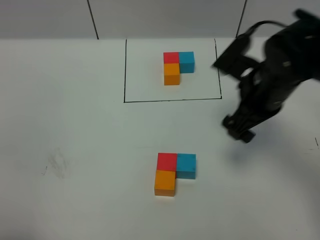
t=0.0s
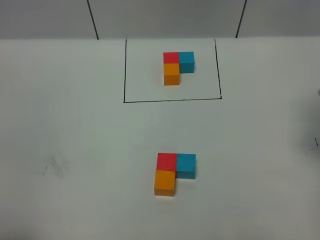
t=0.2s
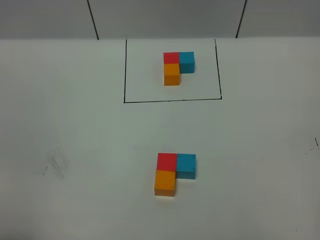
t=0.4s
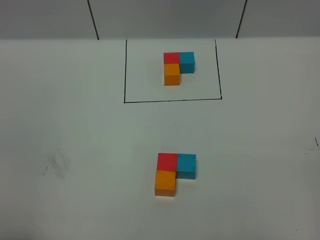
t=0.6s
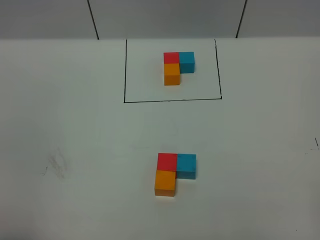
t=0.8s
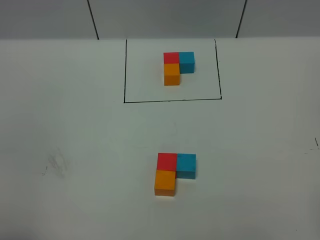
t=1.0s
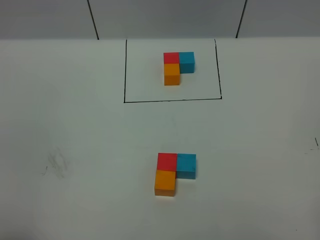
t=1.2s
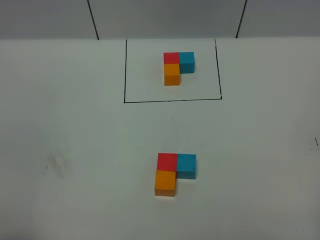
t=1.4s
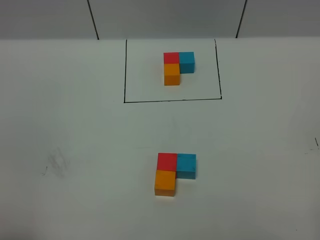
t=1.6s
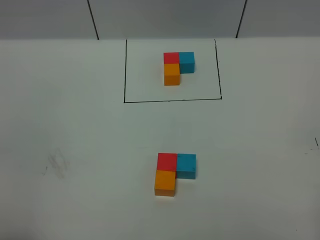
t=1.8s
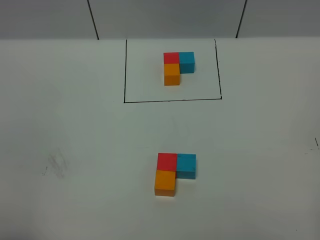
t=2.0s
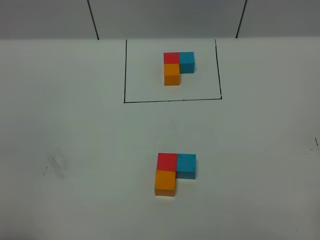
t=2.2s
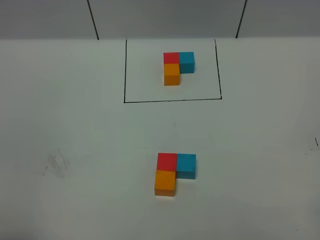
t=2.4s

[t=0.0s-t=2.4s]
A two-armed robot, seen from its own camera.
Task of the whole recording: According to the building block template in front, assemble the scattered blocks together.
t=0.0s to t=1.2s: The right gripper goes roughly 35 cm backward and to the right.

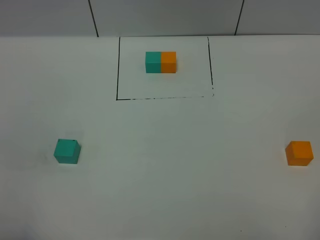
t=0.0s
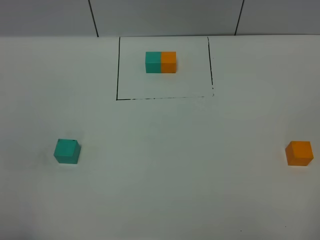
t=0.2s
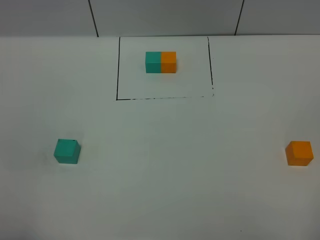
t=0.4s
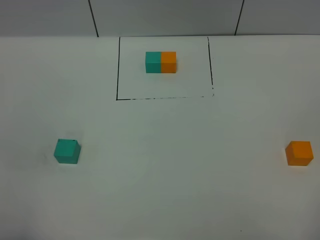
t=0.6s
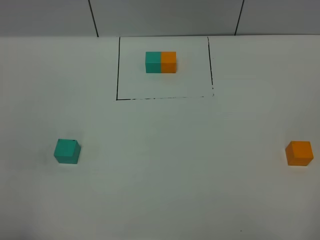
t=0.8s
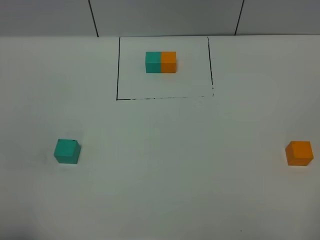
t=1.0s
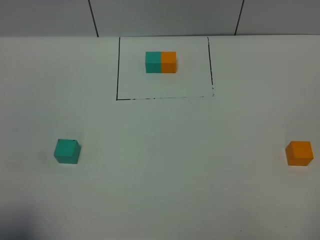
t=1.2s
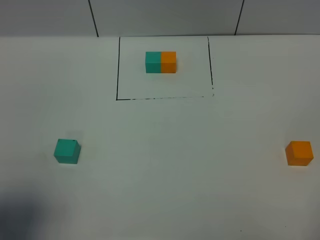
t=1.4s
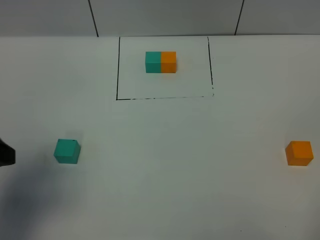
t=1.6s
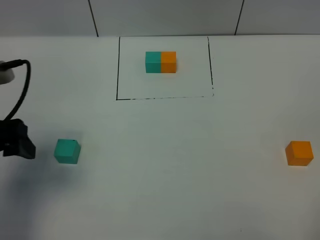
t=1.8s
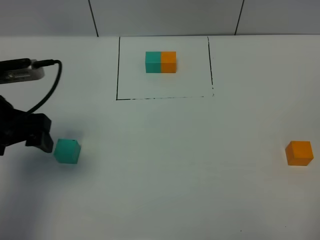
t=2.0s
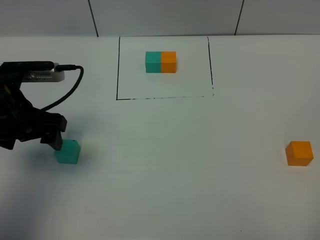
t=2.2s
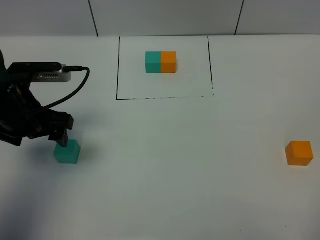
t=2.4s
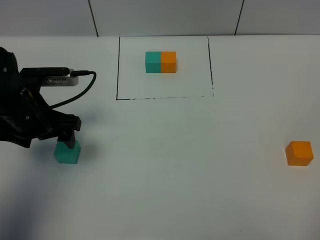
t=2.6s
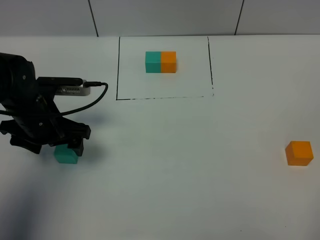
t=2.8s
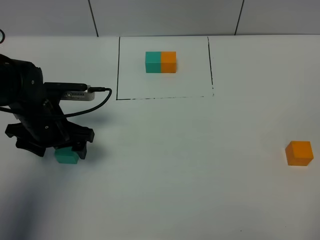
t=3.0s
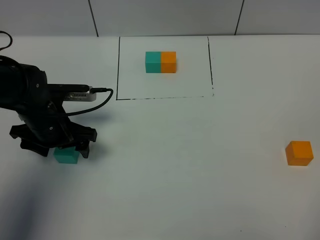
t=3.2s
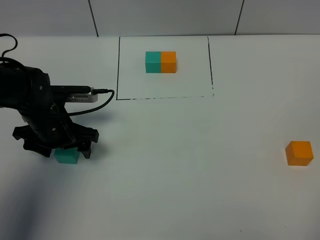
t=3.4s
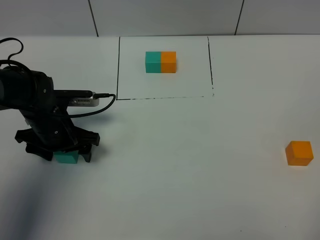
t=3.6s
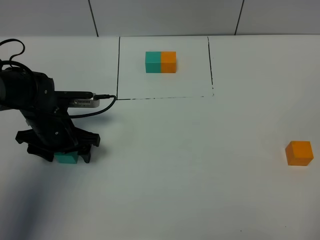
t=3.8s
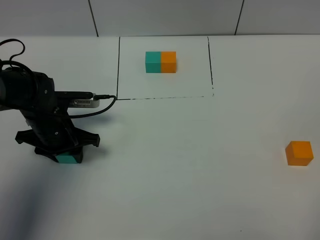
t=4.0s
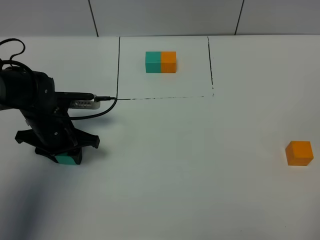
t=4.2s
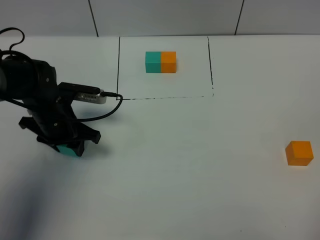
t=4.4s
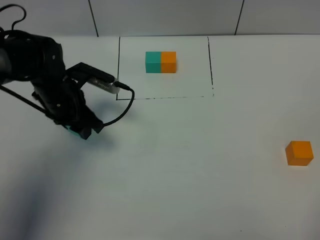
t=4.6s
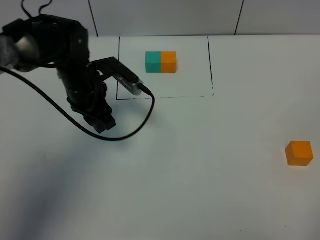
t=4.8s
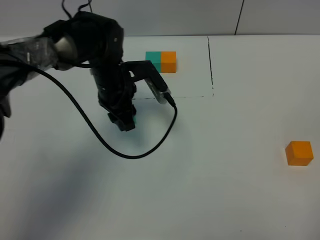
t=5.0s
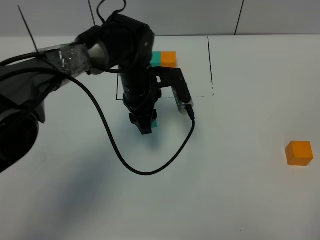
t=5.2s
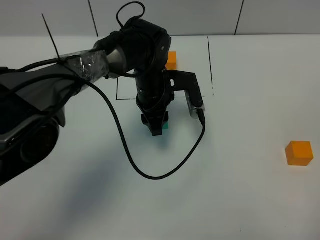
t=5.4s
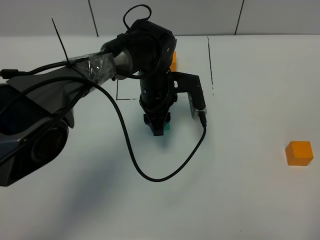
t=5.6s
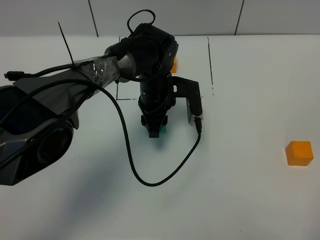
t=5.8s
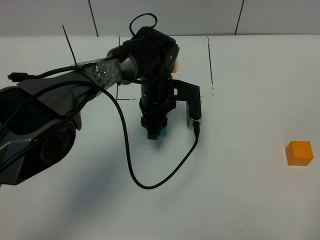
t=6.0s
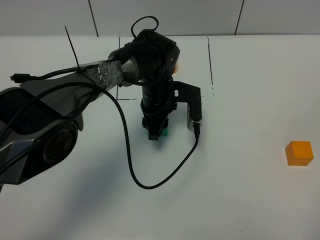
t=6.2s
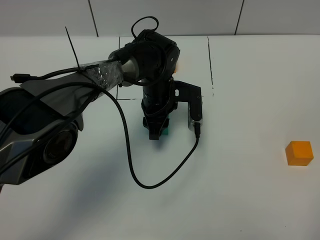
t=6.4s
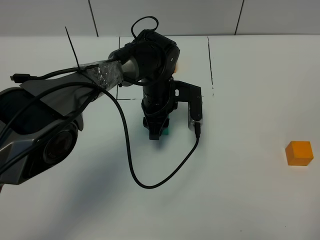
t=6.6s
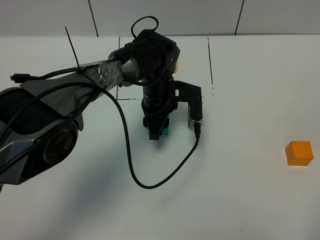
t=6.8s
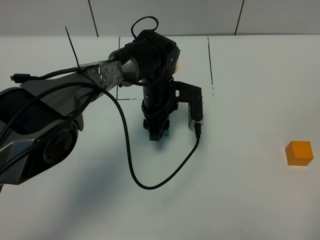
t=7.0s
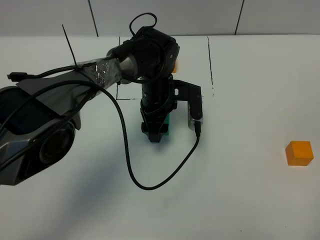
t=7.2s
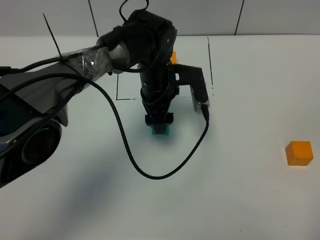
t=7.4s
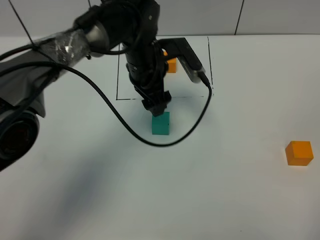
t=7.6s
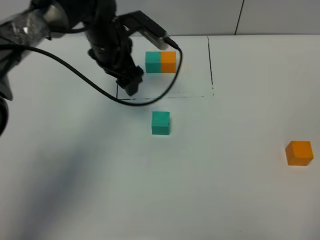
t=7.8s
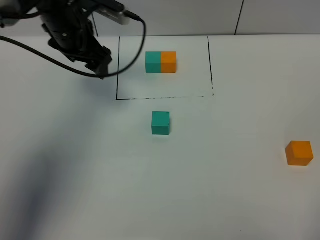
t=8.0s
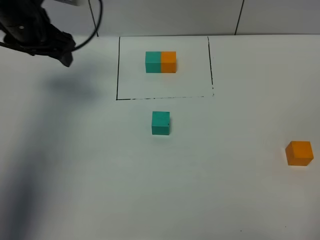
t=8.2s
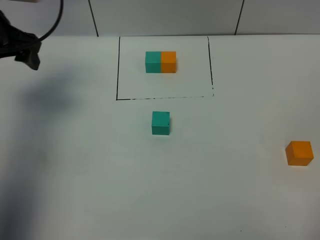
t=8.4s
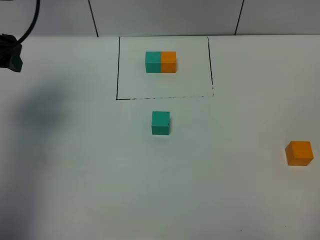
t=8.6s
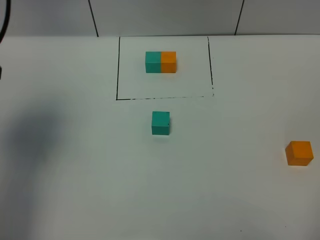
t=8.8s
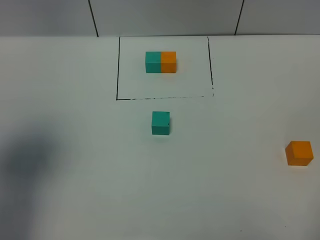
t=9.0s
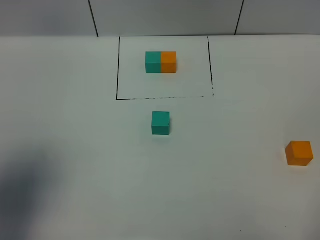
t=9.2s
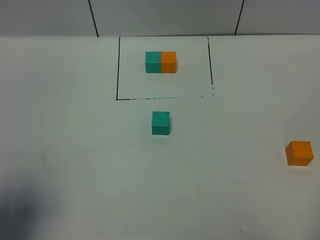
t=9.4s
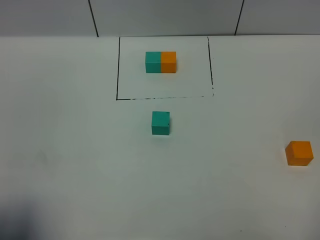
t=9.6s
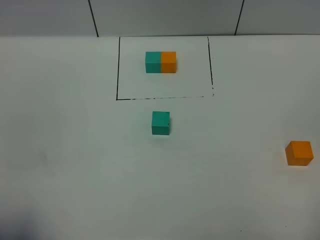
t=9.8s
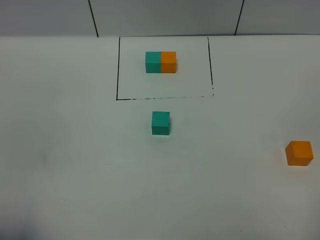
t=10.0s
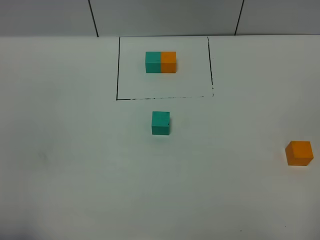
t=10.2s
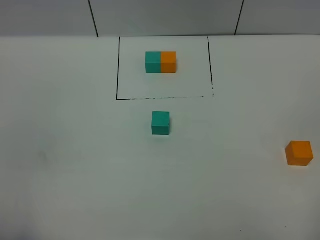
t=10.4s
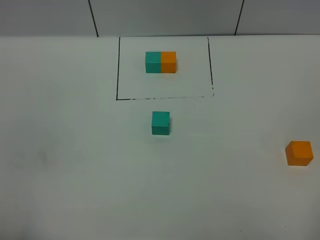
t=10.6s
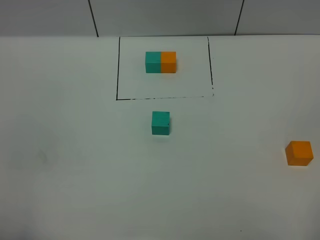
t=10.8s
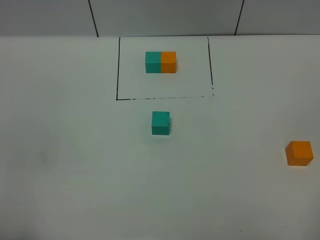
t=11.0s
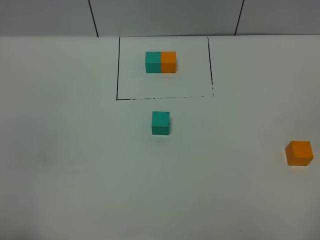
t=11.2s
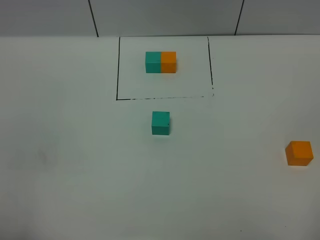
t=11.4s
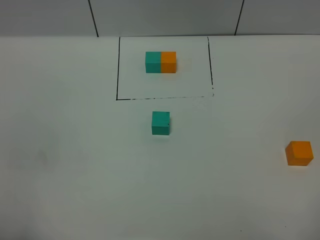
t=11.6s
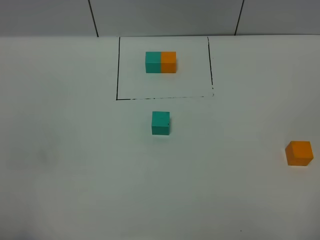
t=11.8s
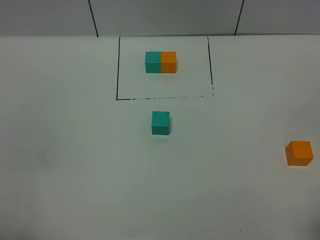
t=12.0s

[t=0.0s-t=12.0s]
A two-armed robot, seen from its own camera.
Task of the whole recording: According to the building block template in front, assemble the scattered blocks together.
Step, t=1.6s to t=7.8s: Put the green cube in the center of the table.
t=0.0s to t=1.6s: The left gripper heads forward, covering approximately 15 cm.
t=1.6s to t=3.0s: The left gripper shifts some 20 cm downward and forward.
t=3.0s to t=4.4s: The left gripper closes its fingers.
t=4.4s to t=6.0s: The left gripper is displaced to the right by about 20 cm.
t=6.0s to t=7.6s: The left gripper moves upward, roughly 10 cm, and opens up.
t=7.6s to t=9.0s: The left gripper is displaced to the left, backward and upward by some 35 cm.
t=9.0s to t=10.4s: The left gripper is displaced backward and downward by some 20 cm.

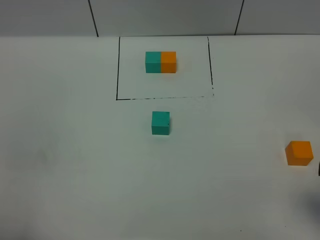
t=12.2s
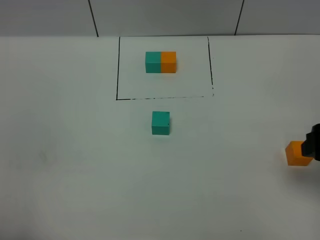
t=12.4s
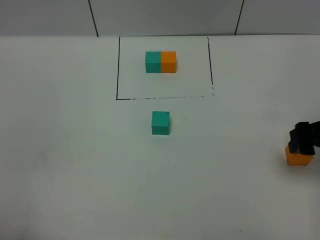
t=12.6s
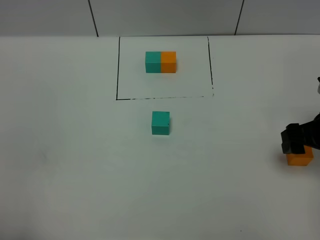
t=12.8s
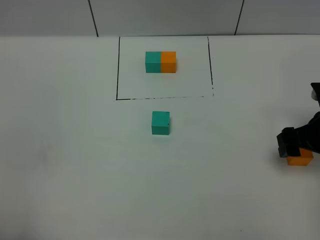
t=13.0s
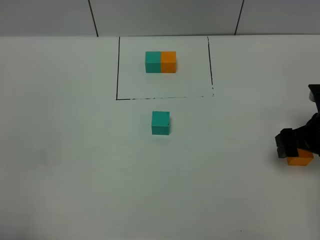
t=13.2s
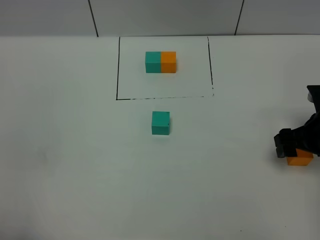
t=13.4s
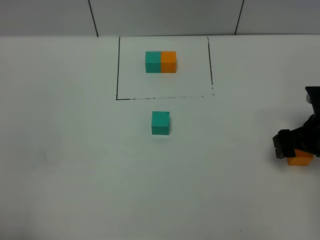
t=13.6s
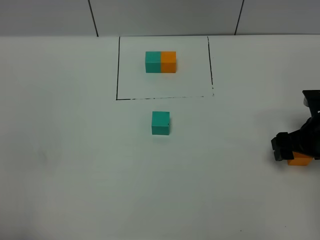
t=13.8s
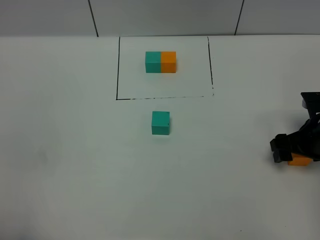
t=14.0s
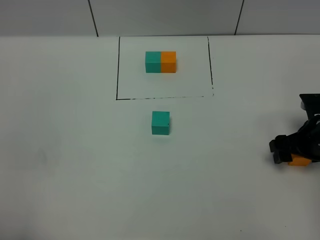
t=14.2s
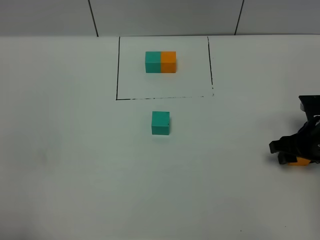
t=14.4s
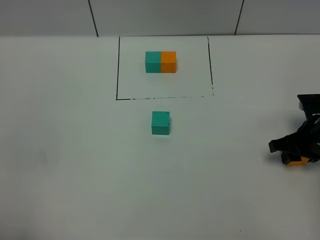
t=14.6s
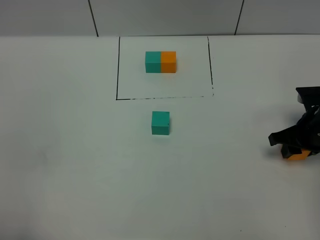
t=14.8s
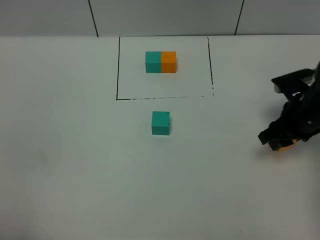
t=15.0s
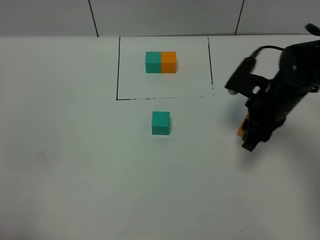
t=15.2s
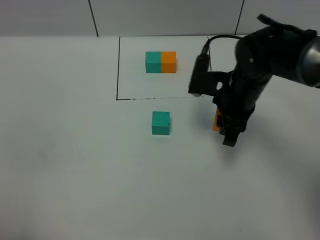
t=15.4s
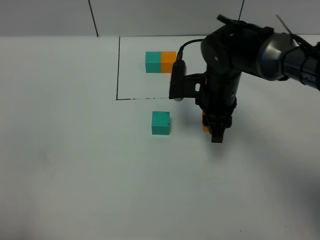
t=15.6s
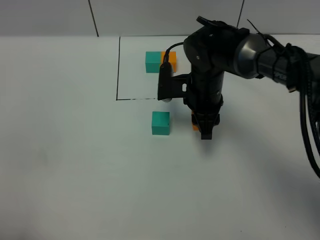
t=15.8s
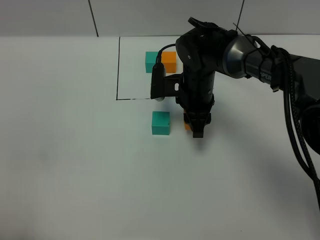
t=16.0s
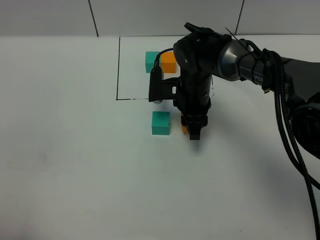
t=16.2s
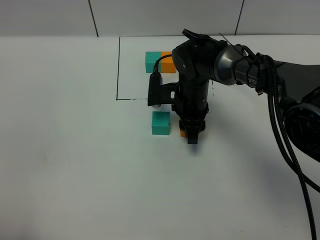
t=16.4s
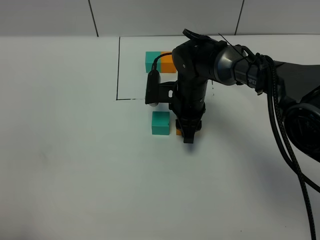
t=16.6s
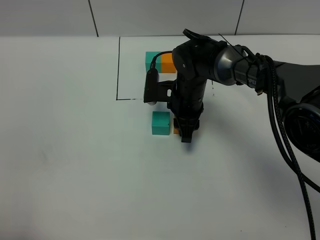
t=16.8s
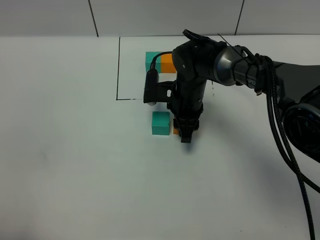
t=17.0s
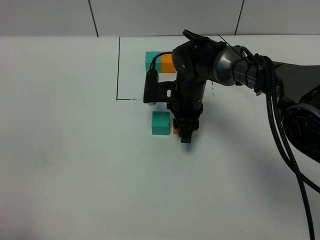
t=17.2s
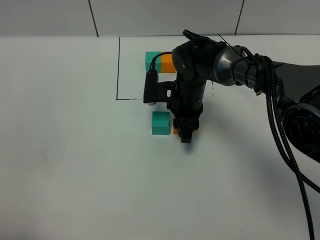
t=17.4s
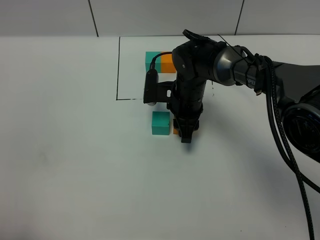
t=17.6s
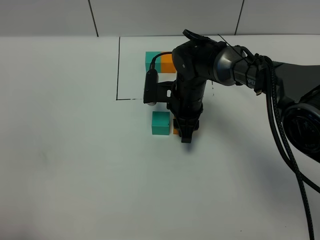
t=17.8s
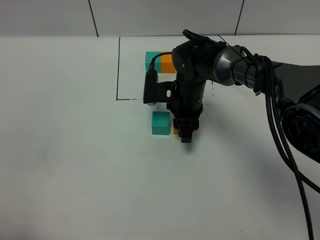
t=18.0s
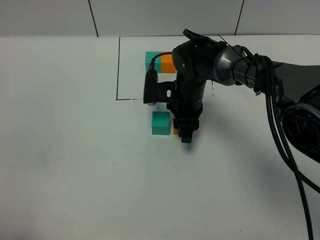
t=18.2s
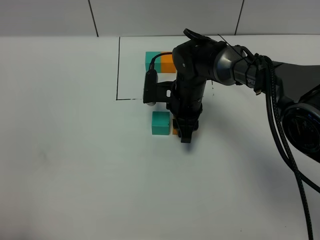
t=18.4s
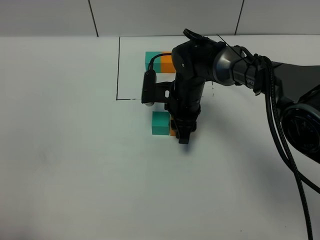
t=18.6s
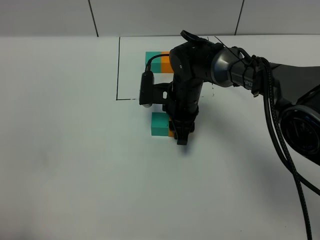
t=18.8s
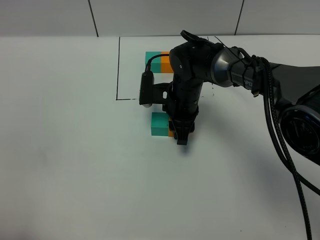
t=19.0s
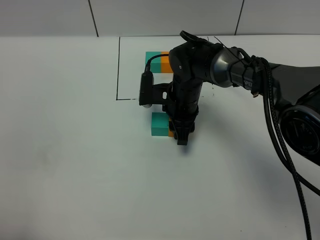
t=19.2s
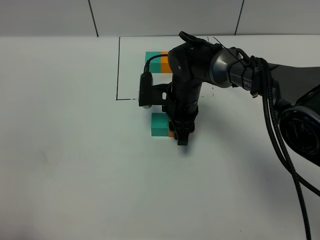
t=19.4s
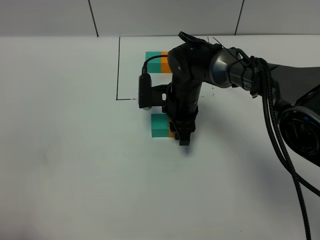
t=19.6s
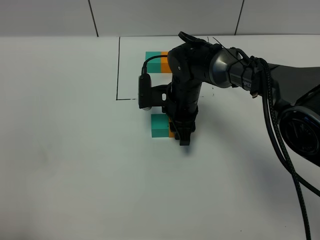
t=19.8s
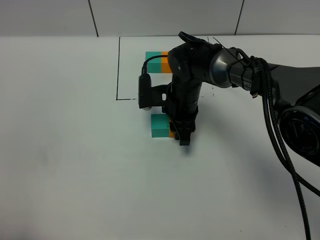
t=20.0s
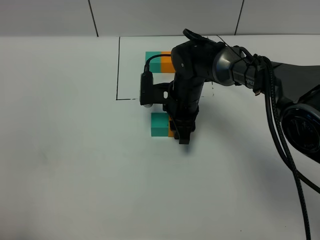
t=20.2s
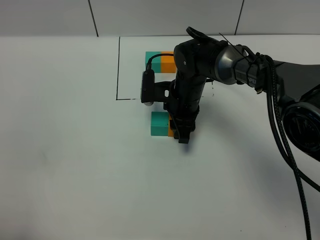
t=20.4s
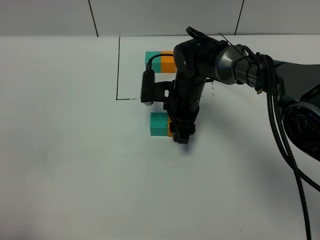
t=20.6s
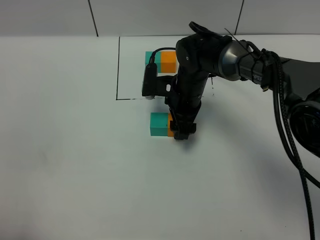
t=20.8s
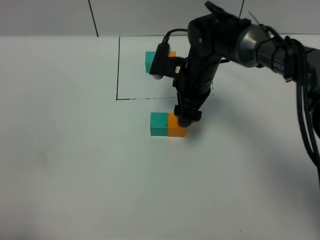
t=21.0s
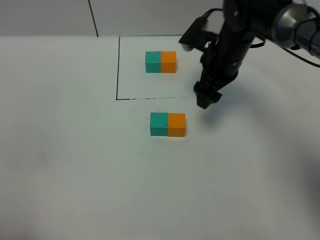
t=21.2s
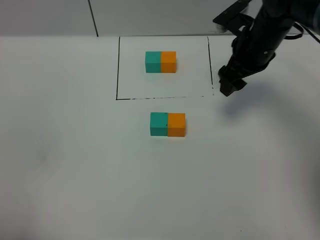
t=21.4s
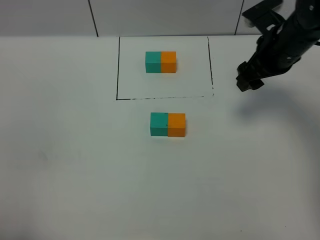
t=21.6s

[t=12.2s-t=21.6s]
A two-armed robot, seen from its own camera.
Task of the whole recording: According to the building block template in front, assemble the scattered blocks together.
Step, t=12.2s to t=21.4s: Put the orange cube on the right of the green cube.
t=12.2s to t=13.8s: The right gripper heads downward and forward, covering some 20 cm.
t=13.8s to t=15.4s: The right gripper heads to the left, covering about 15 cm, and closes its fingers.
t=15.4s to t=17.0s: The right gripper moves to the left, downward and forward, roughly 10 cm.
t=17.0s to t=18.4s: Neither gripper changes place.
t=18.4s to t=20.0s: Neither gripper changes place.
t=20.0s to t=21.6s: The right gripper shifts about 20 cm to the right and upward, and opens.
